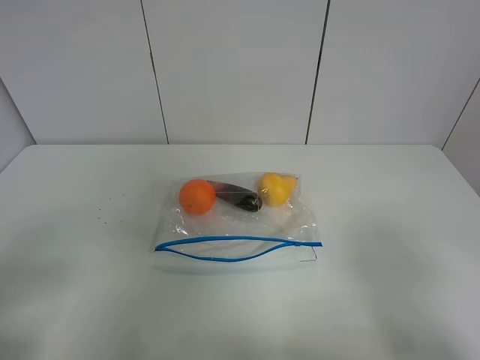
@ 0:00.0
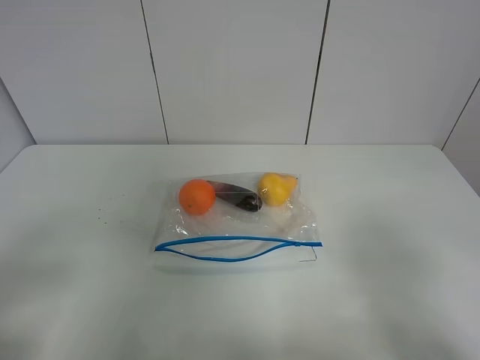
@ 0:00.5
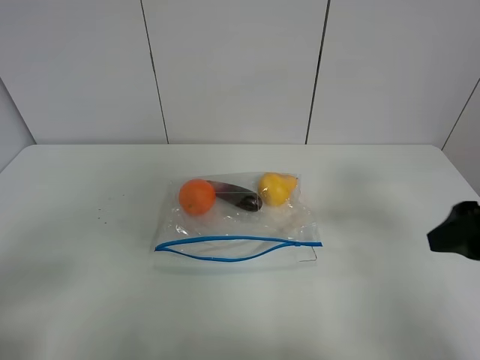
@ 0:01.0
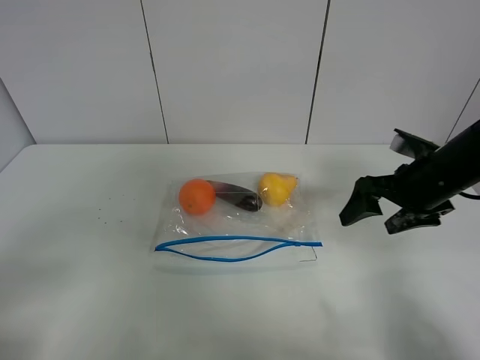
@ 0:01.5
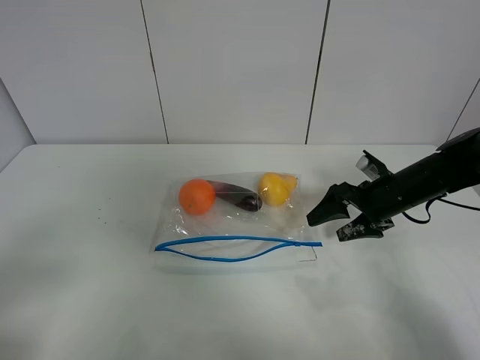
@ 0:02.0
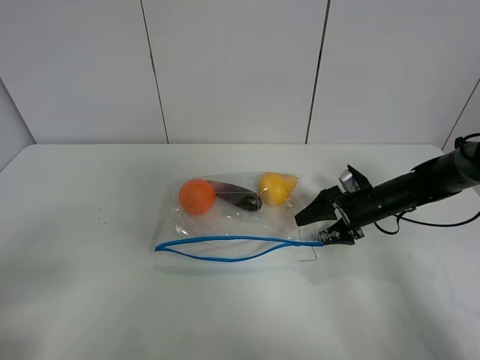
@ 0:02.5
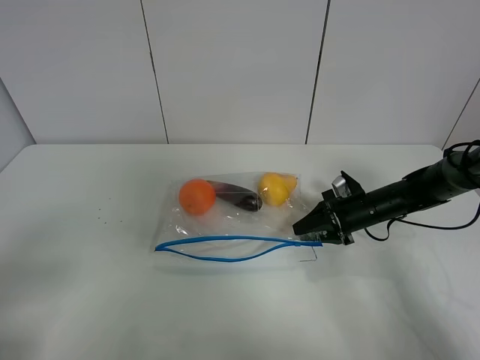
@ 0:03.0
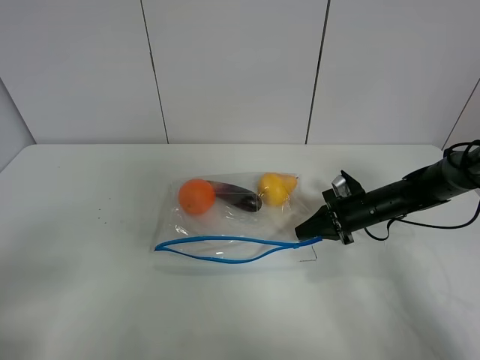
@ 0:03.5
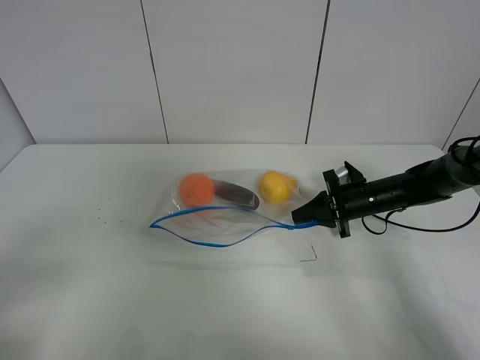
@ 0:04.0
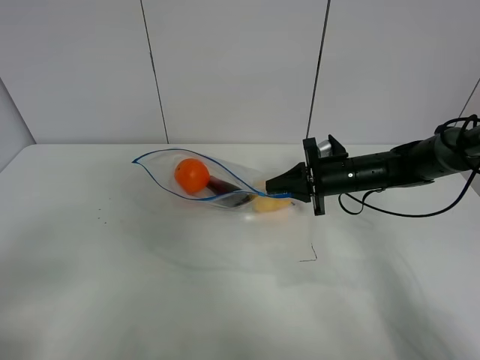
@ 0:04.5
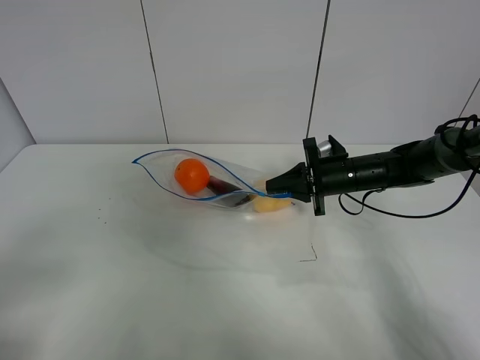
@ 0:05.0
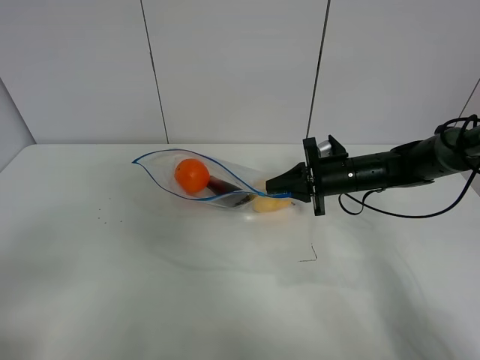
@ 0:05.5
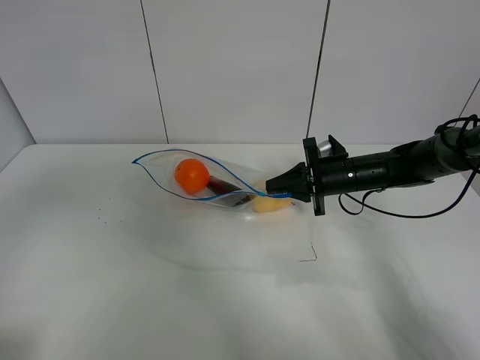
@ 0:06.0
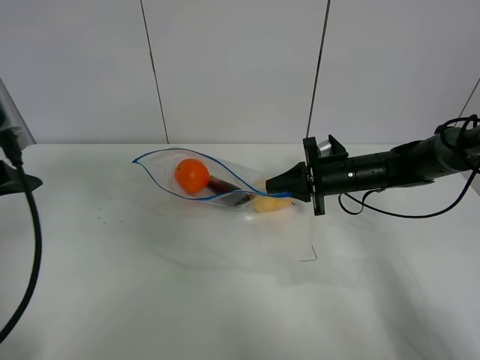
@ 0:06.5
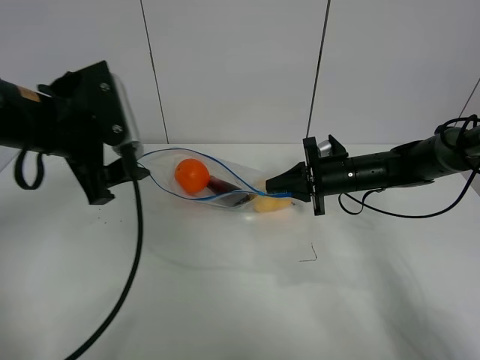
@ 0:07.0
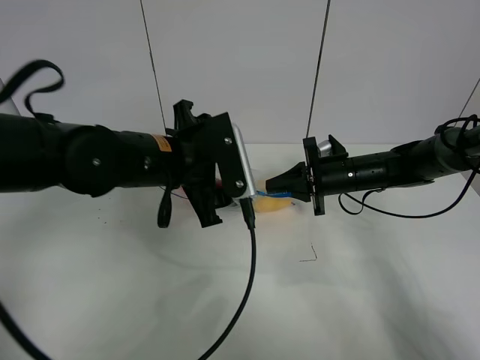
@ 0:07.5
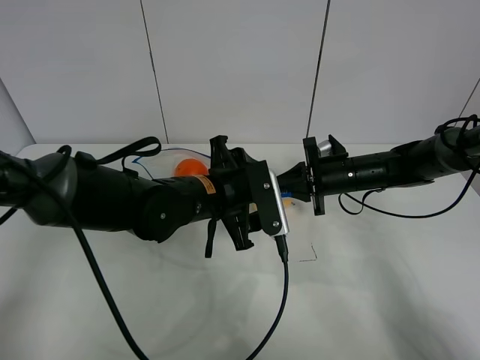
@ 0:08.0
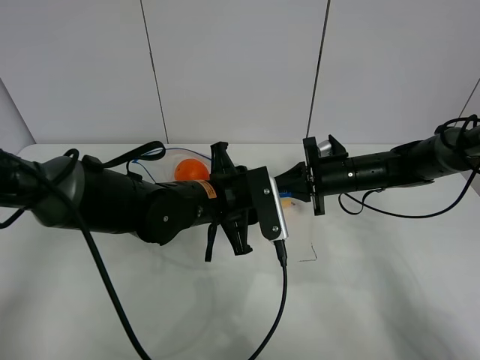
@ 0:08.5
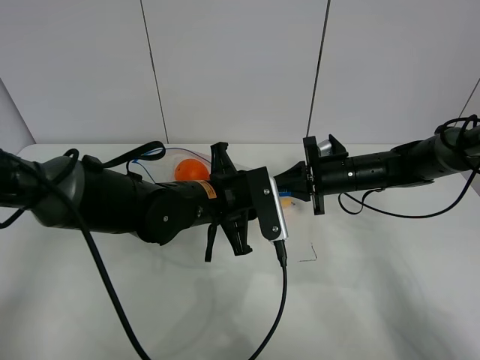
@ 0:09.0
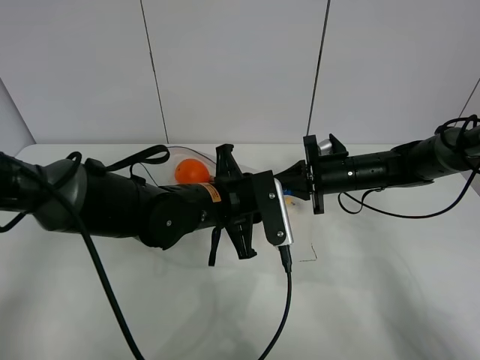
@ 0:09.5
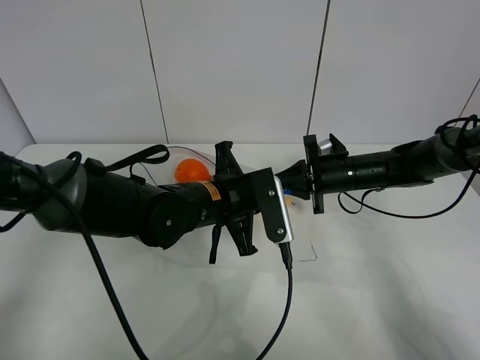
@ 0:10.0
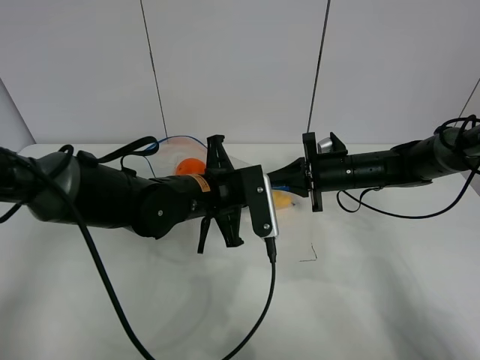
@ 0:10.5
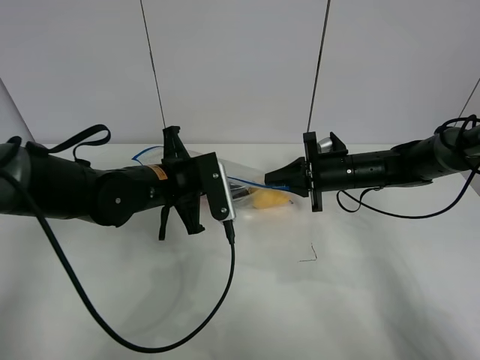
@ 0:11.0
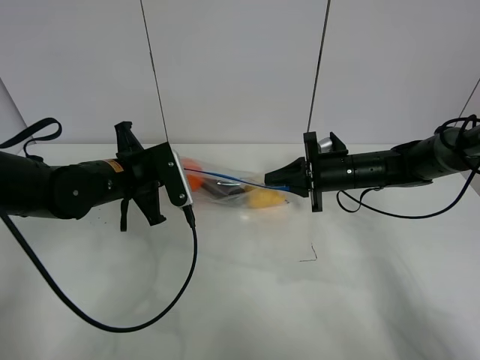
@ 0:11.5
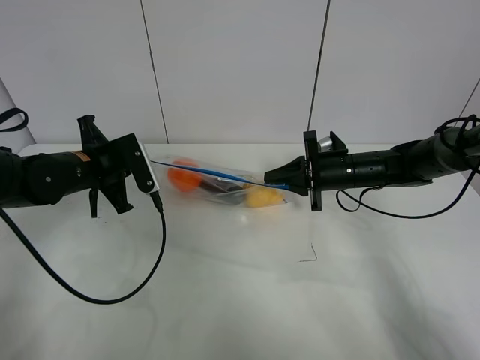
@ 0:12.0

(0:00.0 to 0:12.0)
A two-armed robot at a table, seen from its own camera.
Step, 0:00.0 - 0:03.0: Grasp the fruit bag with right gripper.
Step, 0:03.5 - 0:04.5: Lift the fruit bag with your right gripper.
0:00.0 - 0:02.0: The right gripper moves forward and downward, approximately 35 cm.
0:02.0 - 0:04.0: The right gripper shifts by approximately 5 cm, and closes.
0:04.0 - 0:06.0: The right gripper changes place by roughly 5 cm. The left gripper is displaced upward and forward by some 15 cm.
0:06.0 - 0:08.0: The left gripper is displaced to the right, downward and forward by some 40 cm.
0:08.0 - 0:10.0: The left gripper closes up.
0:10.0 - 0:12.0: The left gripper is displaced to the left by roughly 20 cm.

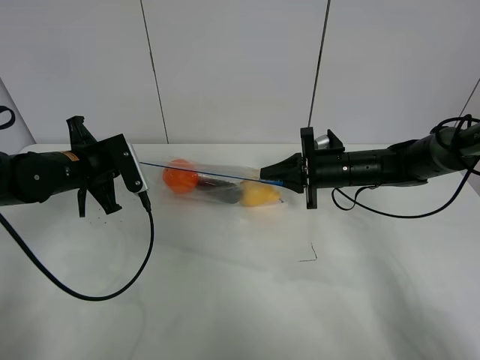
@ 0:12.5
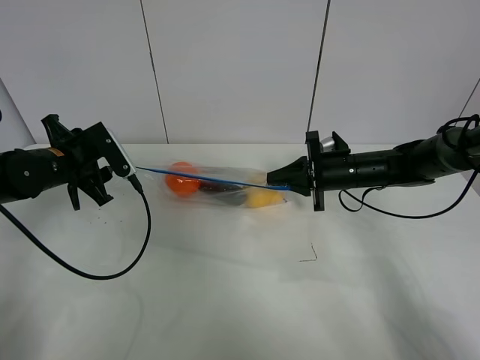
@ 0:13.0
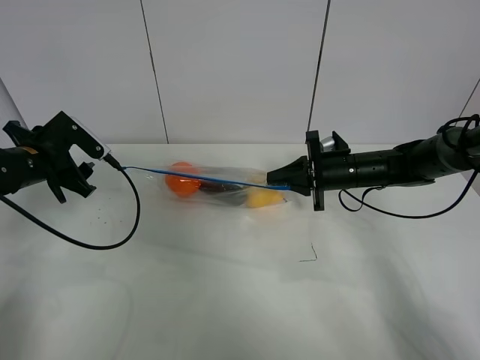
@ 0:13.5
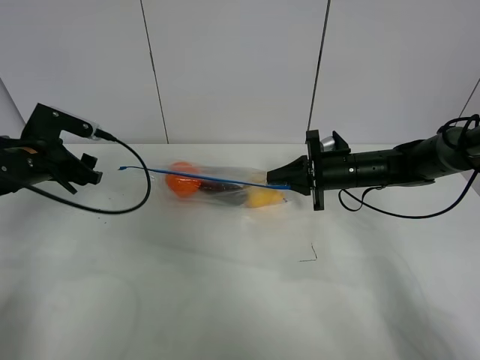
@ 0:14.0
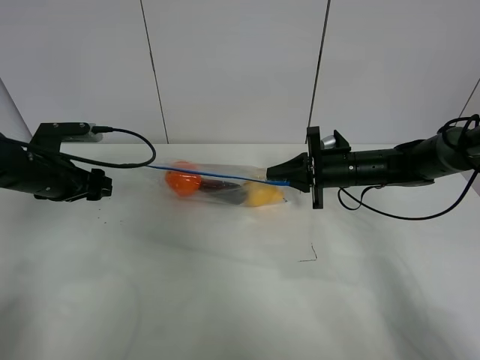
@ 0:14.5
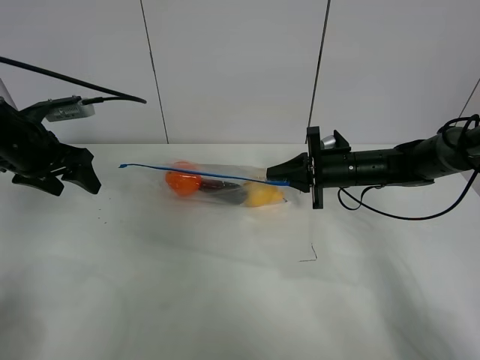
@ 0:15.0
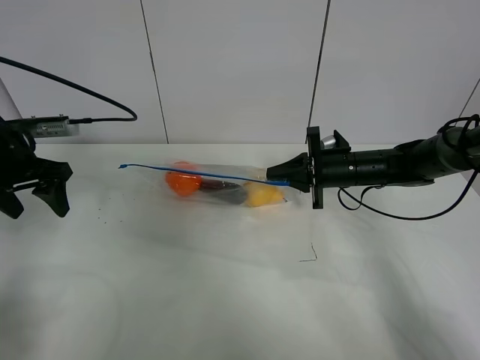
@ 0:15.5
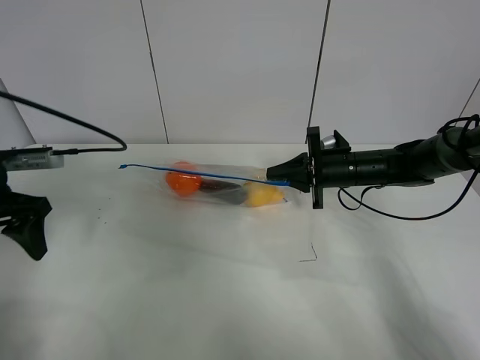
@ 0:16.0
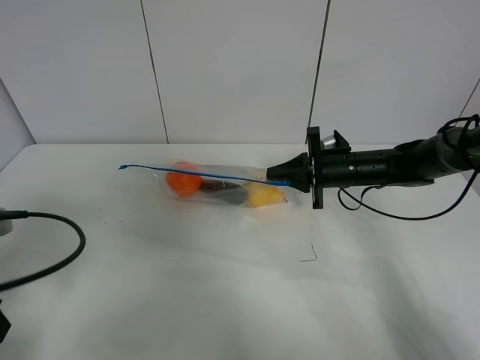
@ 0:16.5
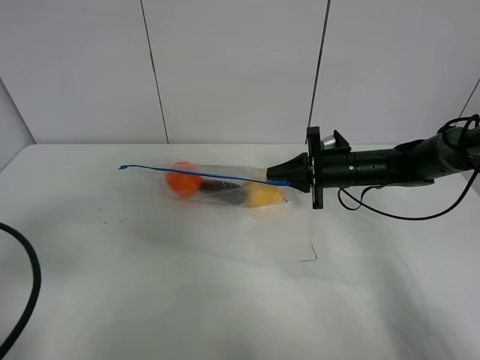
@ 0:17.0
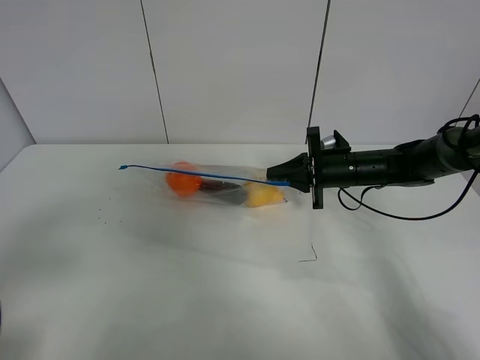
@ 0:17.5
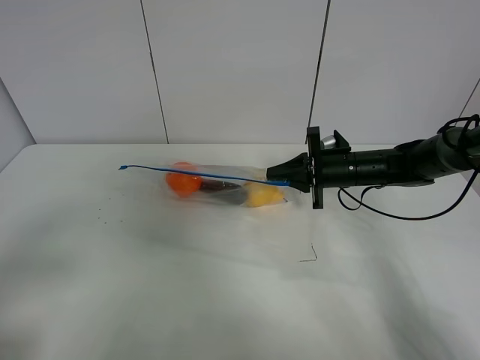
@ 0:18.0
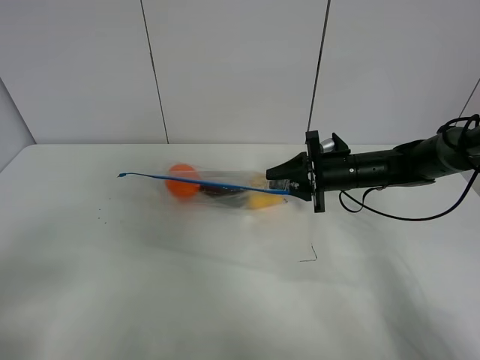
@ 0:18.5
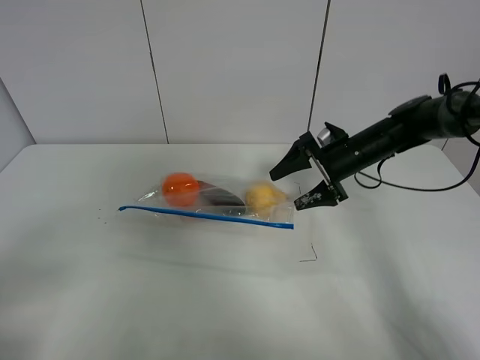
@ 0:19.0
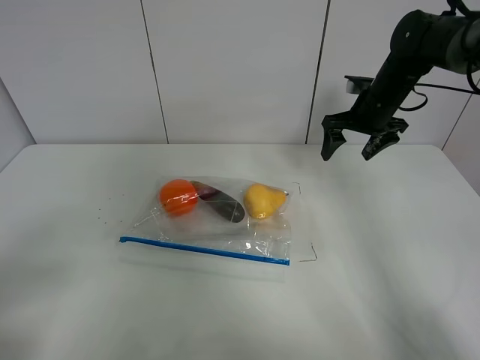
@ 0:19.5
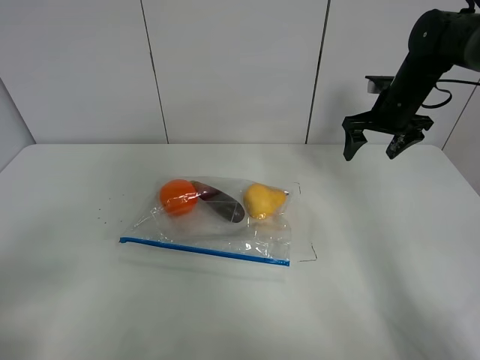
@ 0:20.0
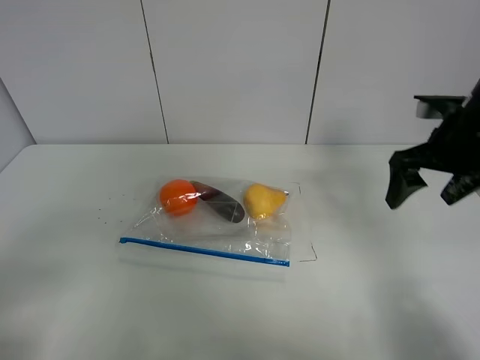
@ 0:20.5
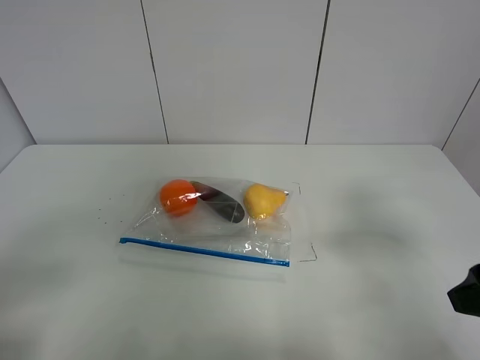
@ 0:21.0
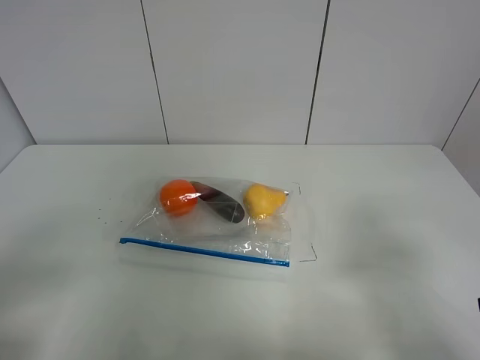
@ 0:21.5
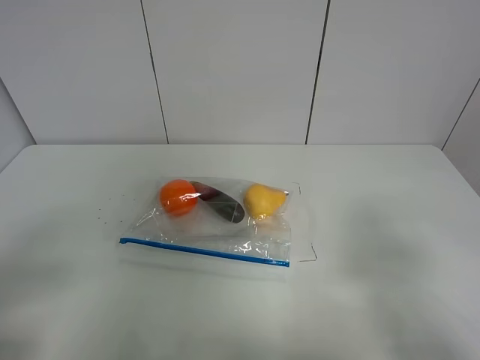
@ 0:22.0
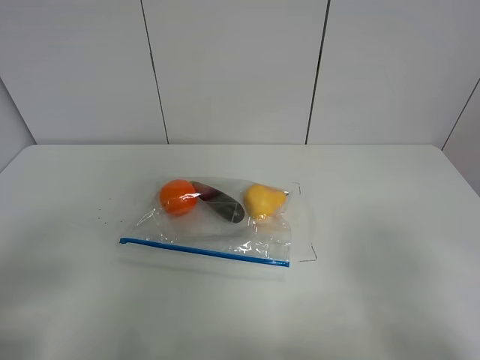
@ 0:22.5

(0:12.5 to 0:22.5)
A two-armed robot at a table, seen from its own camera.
0:12.5 - 0:14.5: The left gripper moves to the left, approximately 5 cm, and opens.
0:14.5 - 0:16.5: The left gripper goes some 20 cm backward.
0:16.5 - 0:18.5: The right gripper opens; the left gripper travels backward by approximately 10 cm.
0:18.5 - 0:20.5: The right gripper goes about 20 cm upward, backward and to the right, and opens.
0:20.5 - 0:22.5: The right gripper travels backward by some 30 cm.
